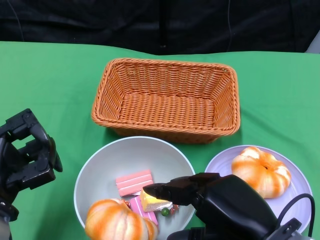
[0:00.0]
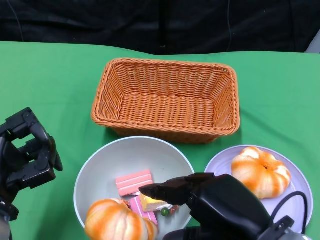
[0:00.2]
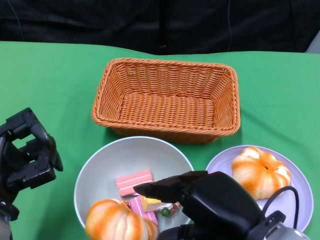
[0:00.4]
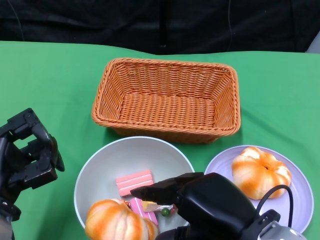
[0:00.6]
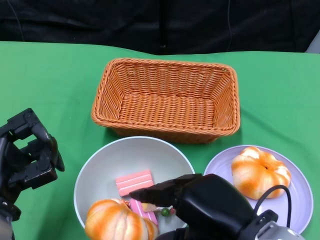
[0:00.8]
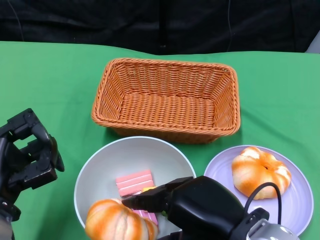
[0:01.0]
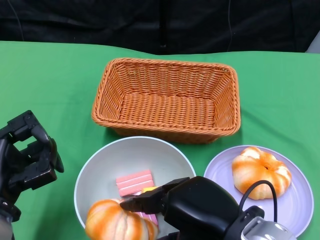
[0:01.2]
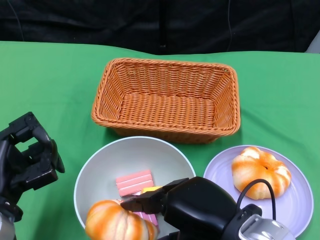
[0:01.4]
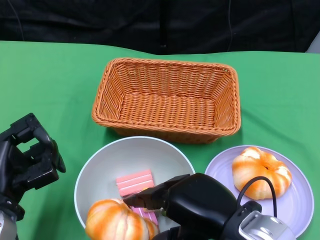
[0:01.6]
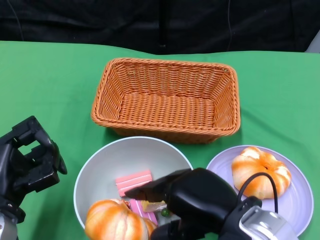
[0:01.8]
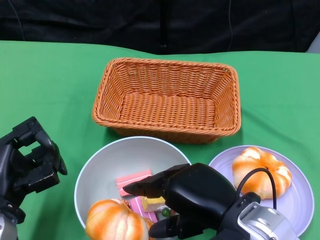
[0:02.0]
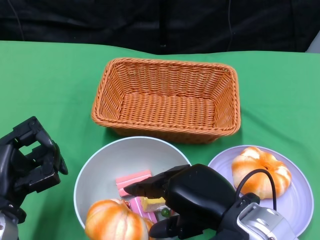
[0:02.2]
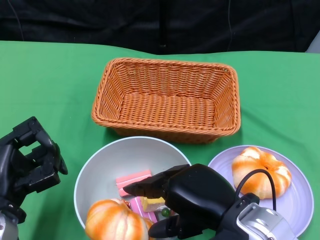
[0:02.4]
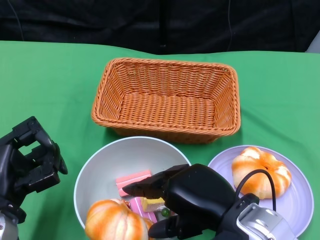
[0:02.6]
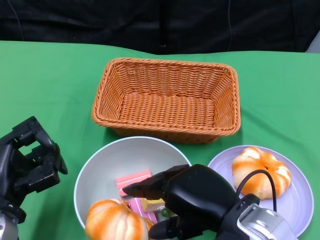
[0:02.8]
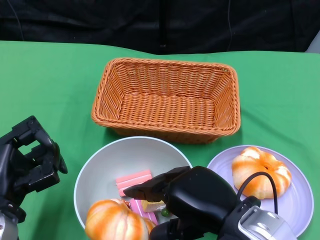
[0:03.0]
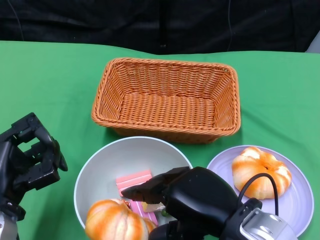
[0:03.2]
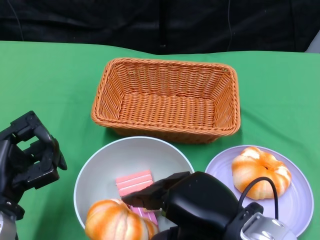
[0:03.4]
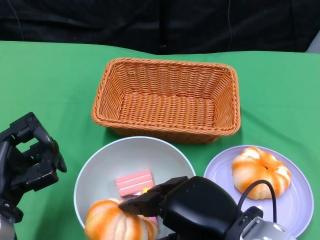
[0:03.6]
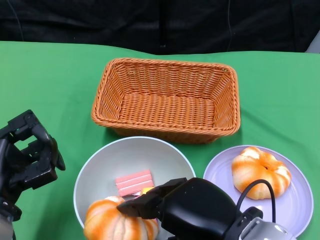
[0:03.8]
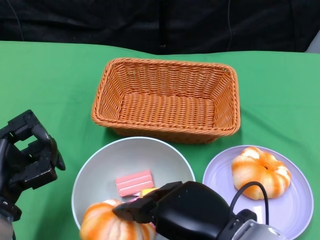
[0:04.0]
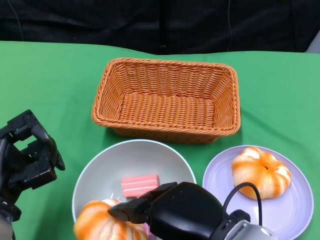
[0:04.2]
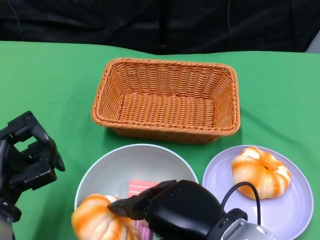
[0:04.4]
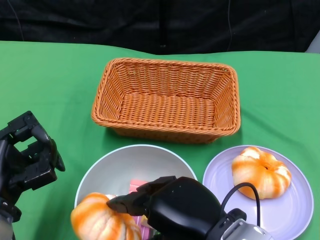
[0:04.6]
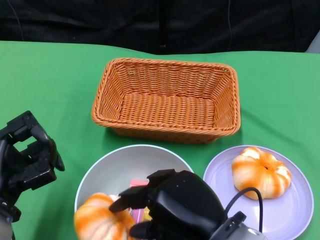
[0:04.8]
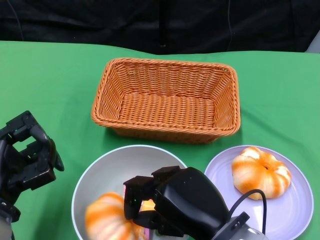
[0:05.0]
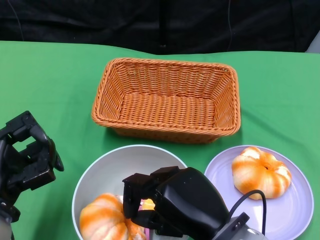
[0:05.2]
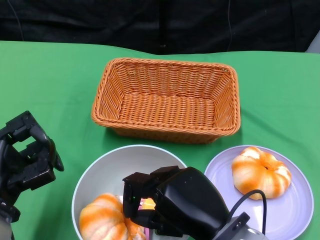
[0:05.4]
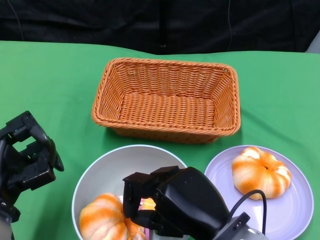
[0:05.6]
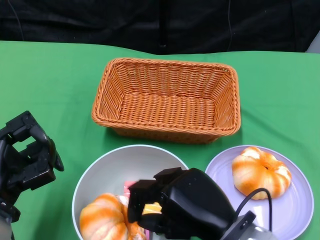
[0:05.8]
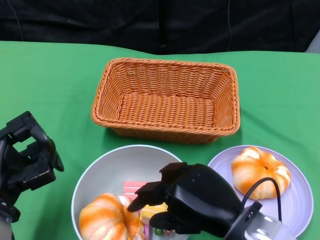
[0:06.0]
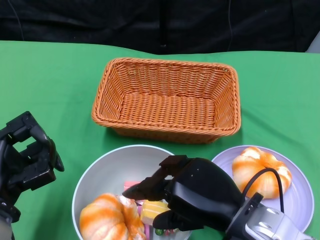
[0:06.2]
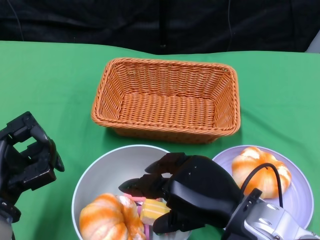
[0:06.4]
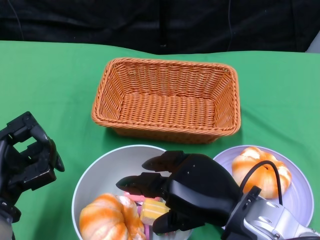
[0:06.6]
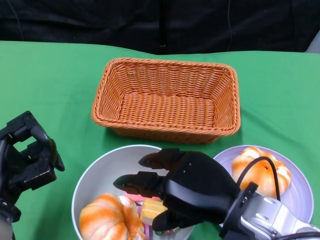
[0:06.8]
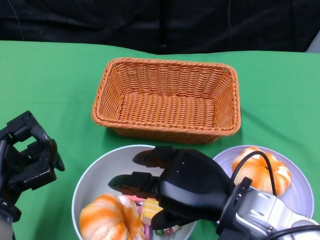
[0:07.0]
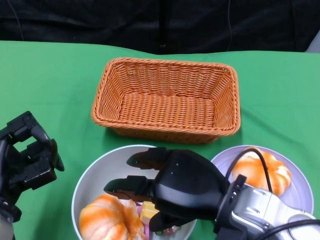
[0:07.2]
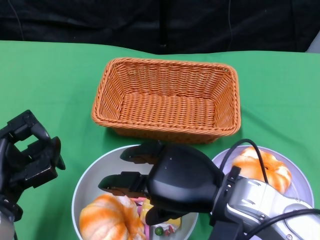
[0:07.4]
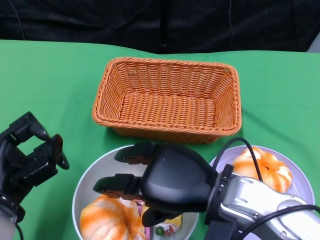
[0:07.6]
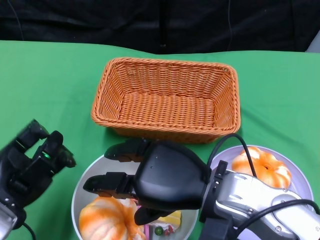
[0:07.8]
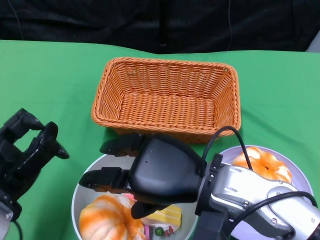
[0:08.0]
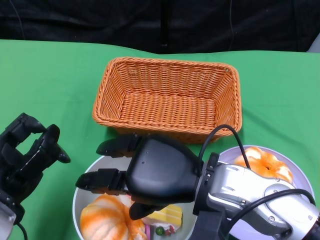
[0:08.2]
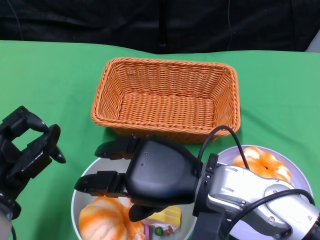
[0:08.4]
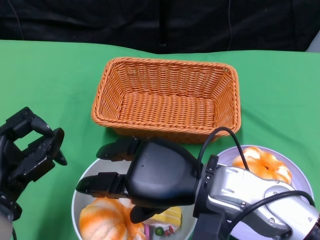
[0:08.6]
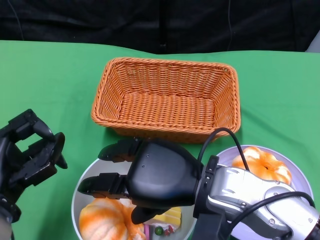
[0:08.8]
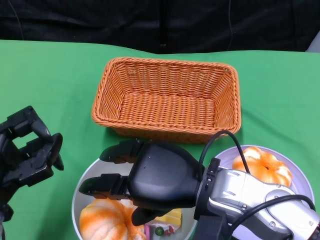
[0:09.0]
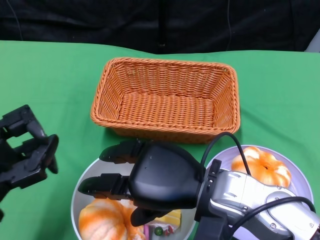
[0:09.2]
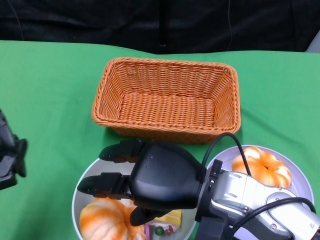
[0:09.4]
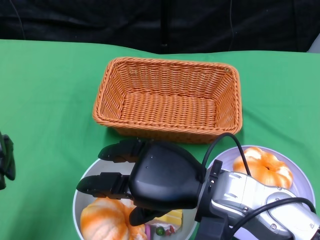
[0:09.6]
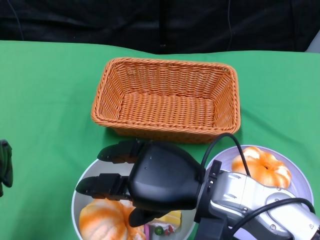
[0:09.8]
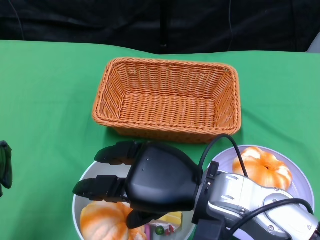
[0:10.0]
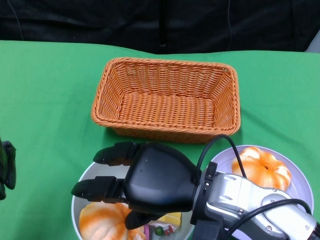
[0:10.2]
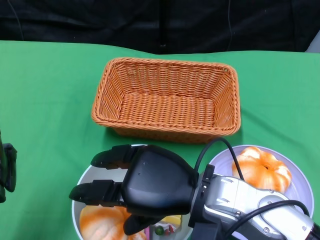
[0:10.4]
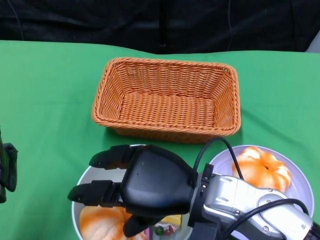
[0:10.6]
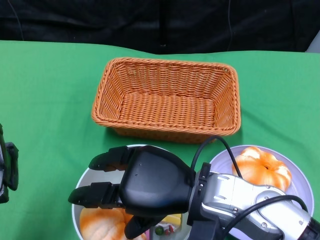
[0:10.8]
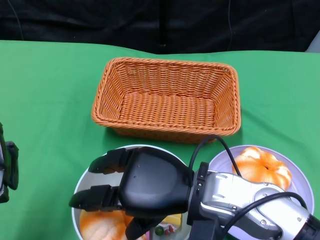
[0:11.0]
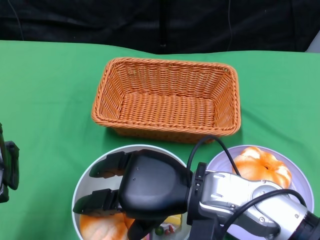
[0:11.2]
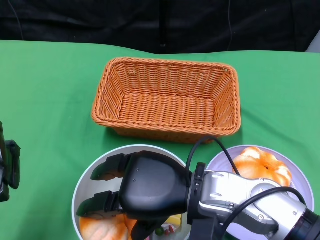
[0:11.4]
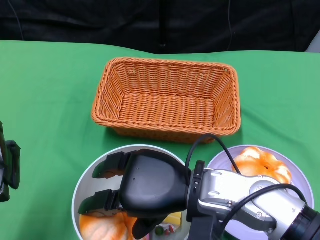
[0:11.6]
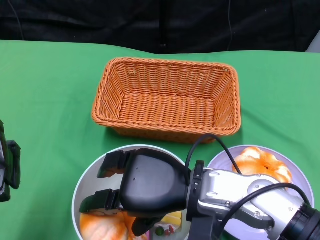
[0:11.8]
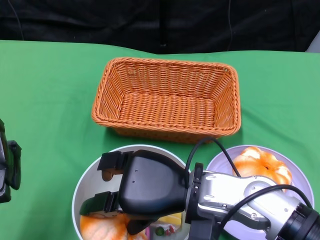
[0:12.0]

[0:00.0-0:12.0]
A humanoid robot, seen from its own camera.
0:00.0 to 0:01.6: The hands stay close to where they were, moving slightly.
0:01.6 to 0:03.0: Neither hand changes place.
0:03.0 to 0:04.4: The hands move only a little.
0:09.0 to 0:10.4: The left hand goes some 5 cm to the left.
0:10.4 to 0:12.0: The hands make only small movements.

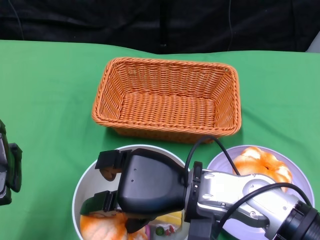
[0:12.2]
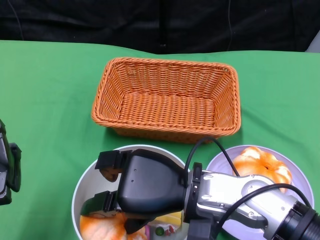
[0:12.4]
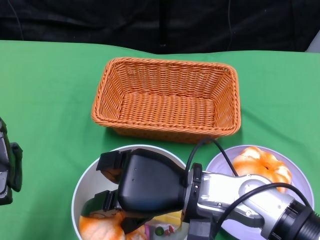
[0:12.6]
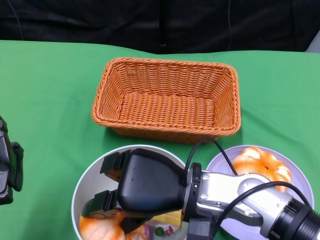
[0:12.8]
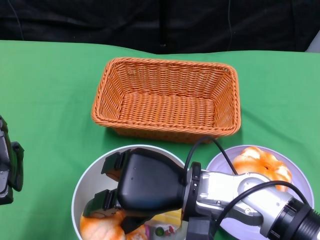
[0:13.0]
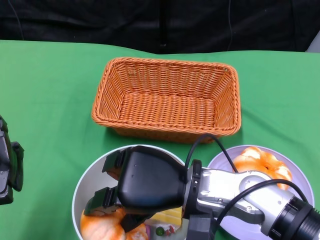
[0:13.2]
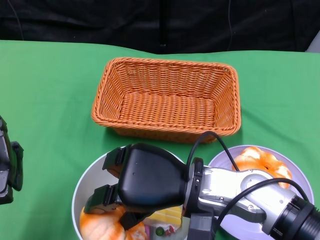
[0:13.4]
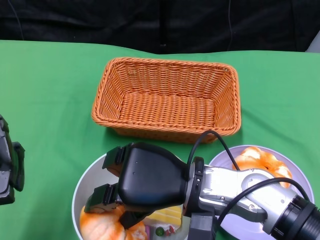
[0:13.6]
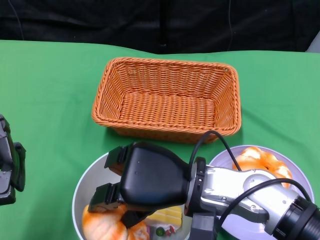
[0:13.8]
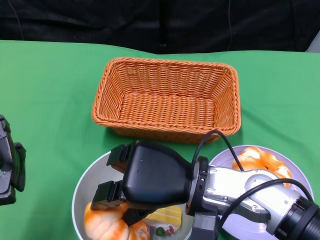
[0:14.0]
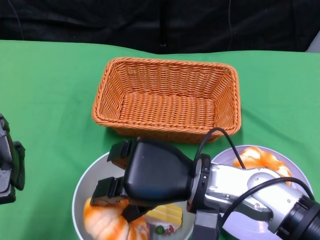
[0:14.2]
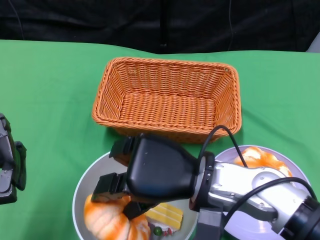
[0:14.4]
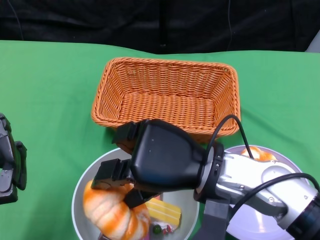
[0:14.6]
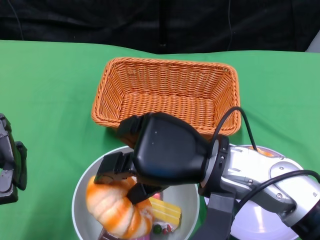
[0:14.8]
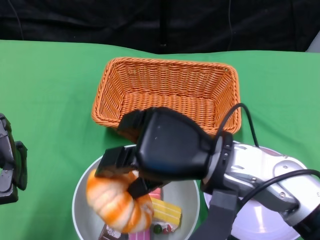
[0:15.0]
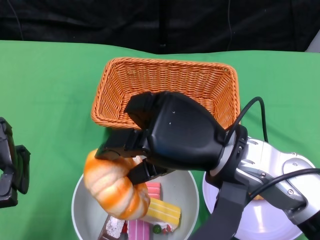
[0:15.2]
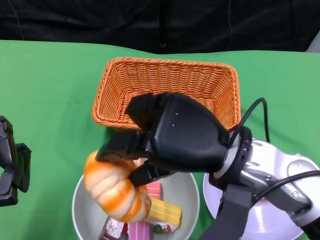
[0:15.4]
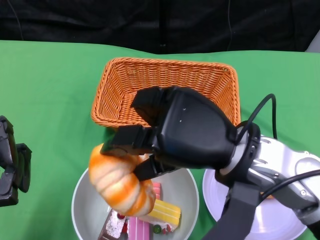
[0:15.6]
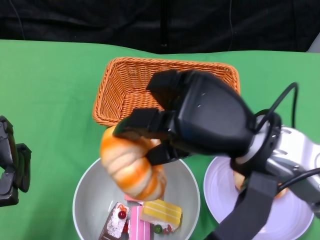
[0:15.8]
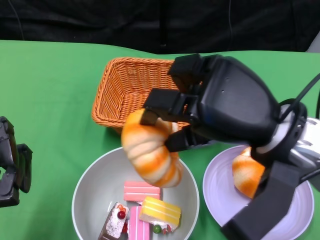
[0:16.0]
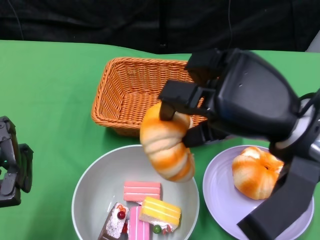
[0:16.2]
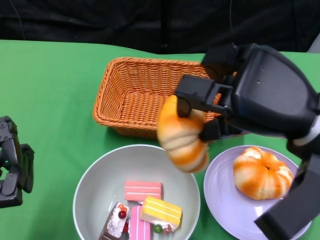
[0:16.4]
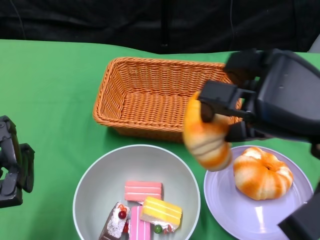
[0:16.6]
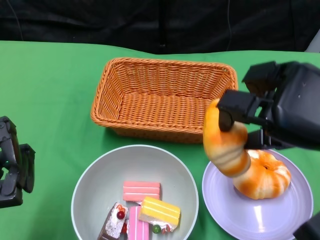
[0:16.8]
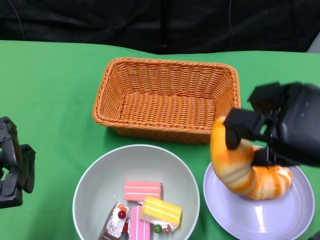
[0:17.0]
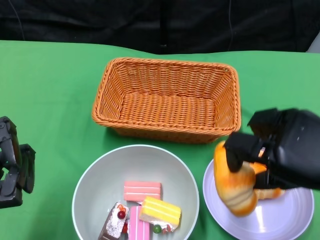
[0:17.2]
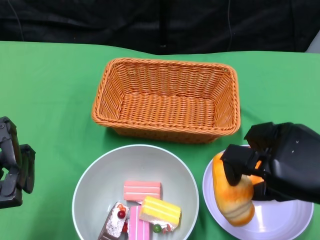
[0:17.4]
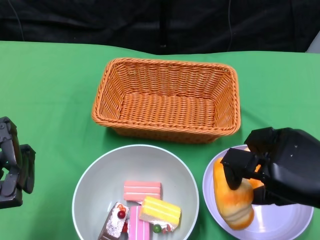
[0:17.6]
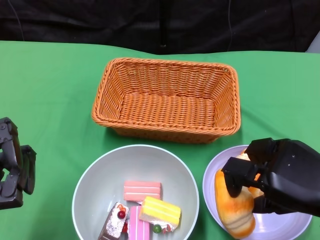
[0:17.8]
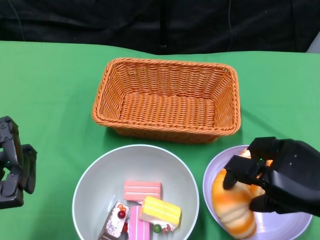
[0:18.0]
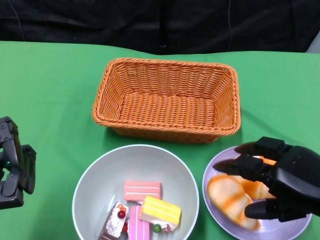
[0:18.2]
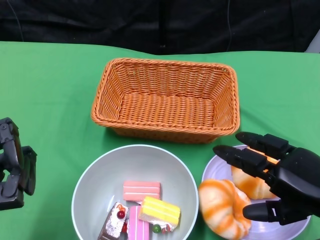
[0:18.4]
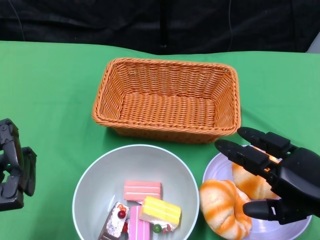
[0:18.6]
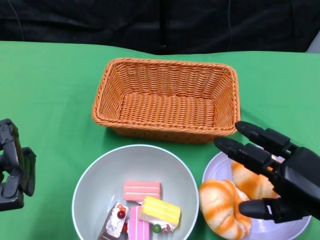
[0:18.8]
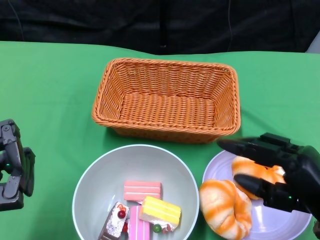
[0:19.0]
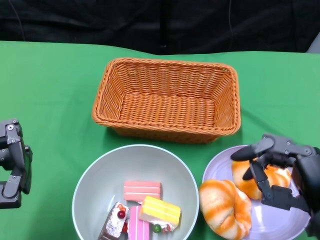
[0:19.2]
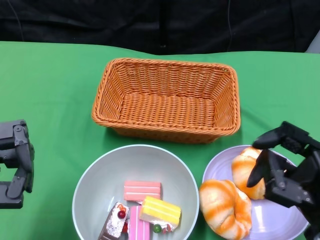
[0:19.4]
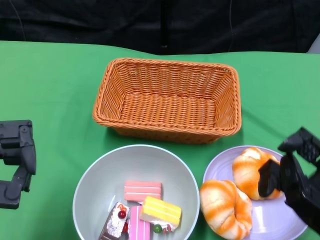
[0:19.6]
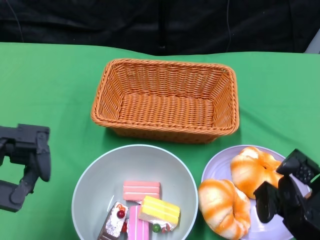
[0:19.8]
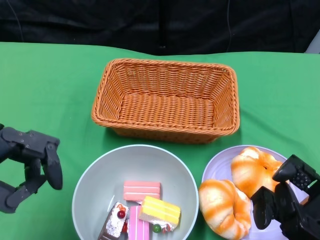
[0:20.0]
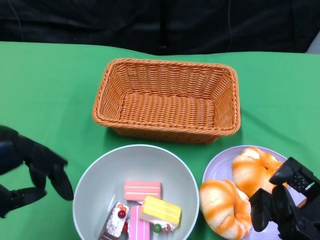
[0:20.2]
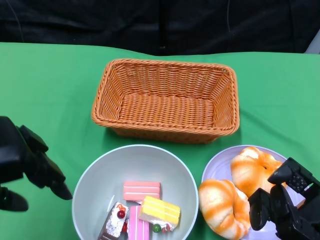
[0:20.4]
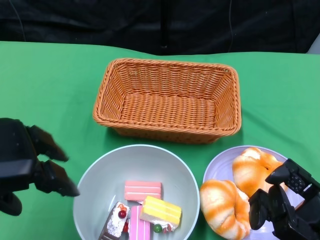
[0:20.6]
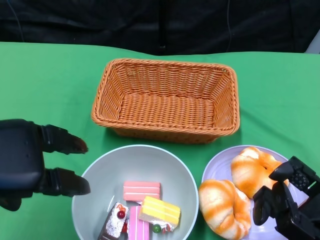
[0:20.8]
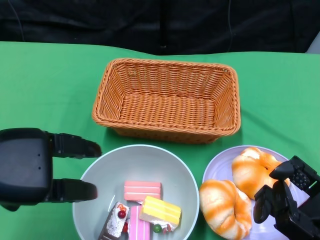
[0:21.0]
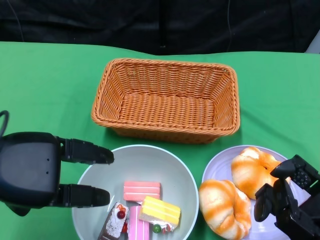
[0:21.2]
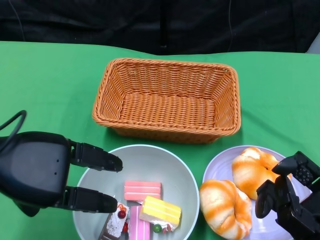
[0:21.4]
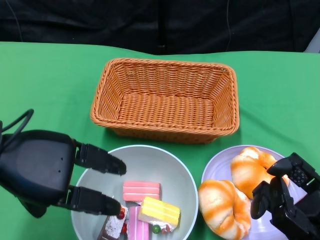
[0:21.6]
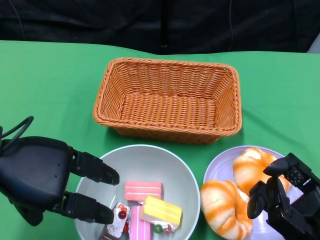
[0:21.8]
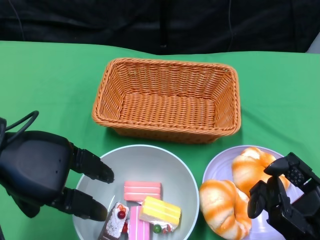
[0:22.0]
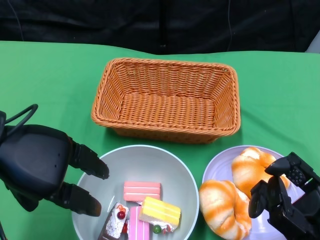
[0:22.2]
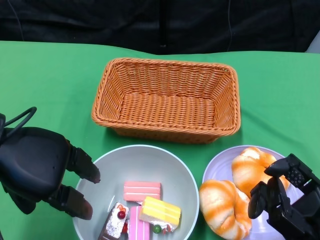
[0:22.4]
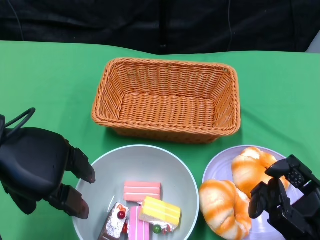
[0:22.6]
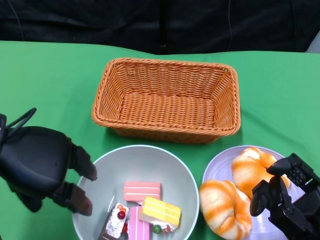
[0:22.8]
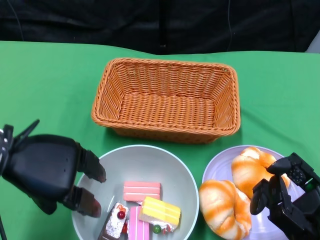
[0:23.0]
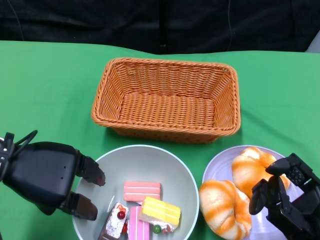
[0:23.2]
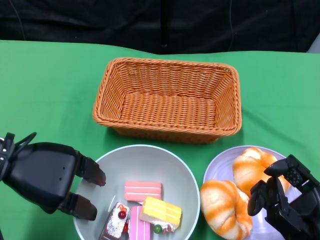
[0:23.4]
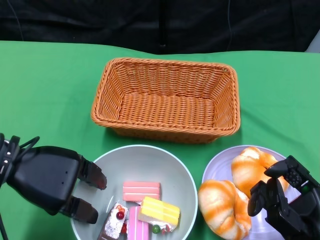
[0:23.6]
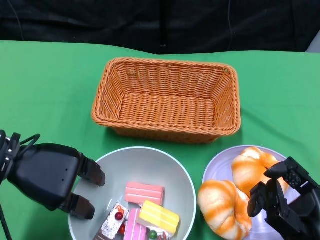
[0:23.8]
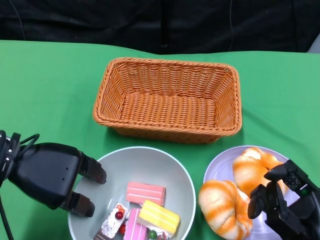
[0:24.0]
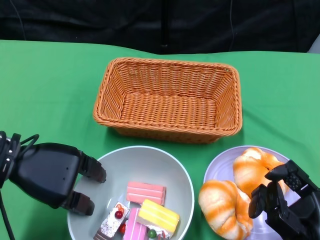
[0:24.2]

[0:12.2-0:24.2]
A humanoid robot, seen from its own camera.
Step, 0:12.2 to 0:18.4: Pick up the bread with the right gripper and place it on the plate.
0:12.2 to 0:13.8: There are only small adjustments of the hands.
0:13.8 to 0:15.2: The right hand heads upward, covering roughly 5 cm.
0:15.2 to 0:16.6: The right hand heads to the right, covering about 10 cm.
0:16.6 to 0:18.2: The right hand travels downward by some 10 cm.
0:18.2 to 0:19.8: The right hand travels backward by about 5 cm.
0:19.8 to 0:21.2: The left hand is displaced upward by approximately 5 cm.
0:21.2 to 0:22.6: The hands stay close to where they were, moving slightly.
0:22.6 to 0:24.2: The left hand heads downward, covering roughly 10 cm.
